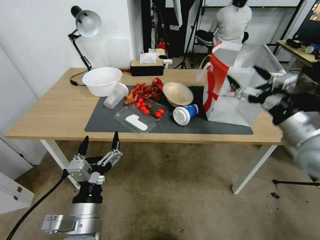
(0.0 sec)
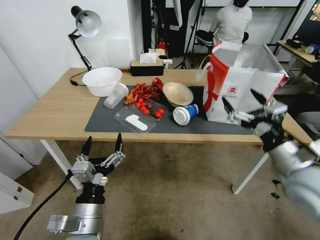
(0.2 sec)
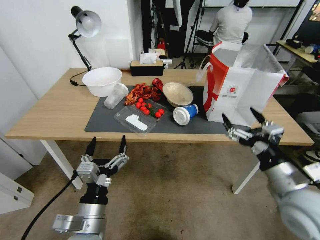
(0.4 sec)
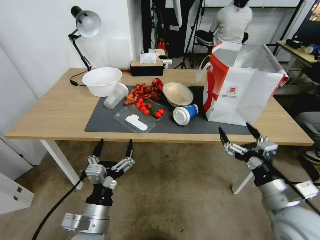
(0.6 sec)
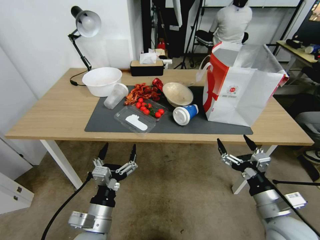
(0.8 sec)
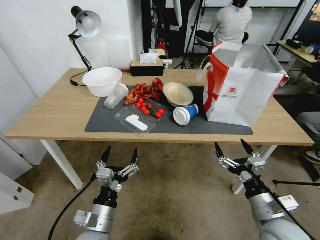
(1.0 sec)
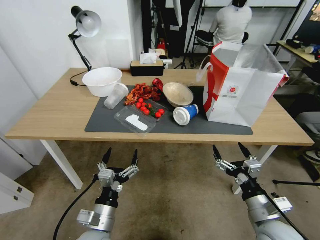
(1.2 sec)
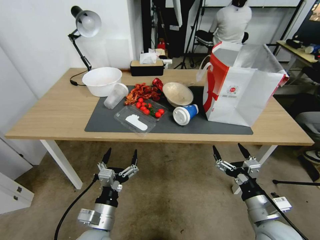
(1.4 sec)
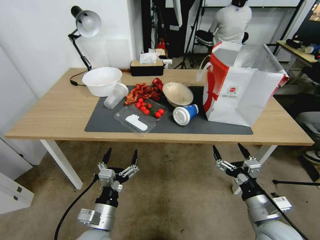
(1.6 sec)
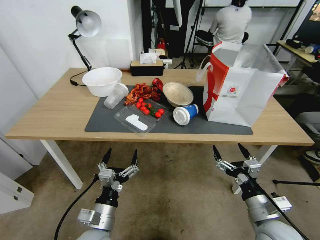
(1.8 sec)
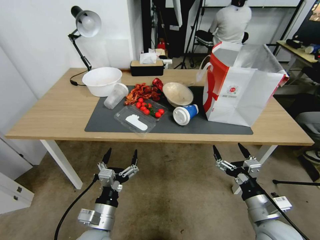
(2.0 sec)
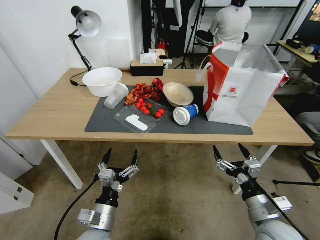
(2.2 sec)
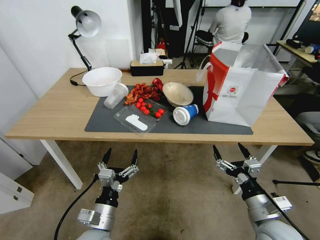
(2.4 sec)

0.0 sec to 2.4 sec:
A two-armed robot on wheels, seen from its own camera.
Task of the whole recording: Pick up the food delivery bag from the floor and place it on the table.
0.0 sec to 1.2 sec: The right gripper is displaced downward and backward by some 25 cm; the left gripper shifts roughly 10 cm downward.
1.2 sec to 2.4 sec: Both grippers stay put.
